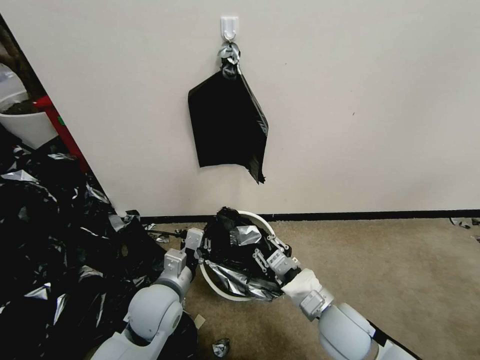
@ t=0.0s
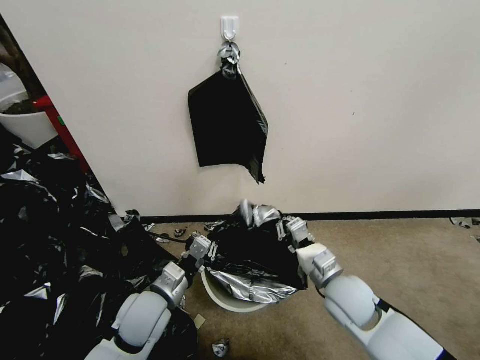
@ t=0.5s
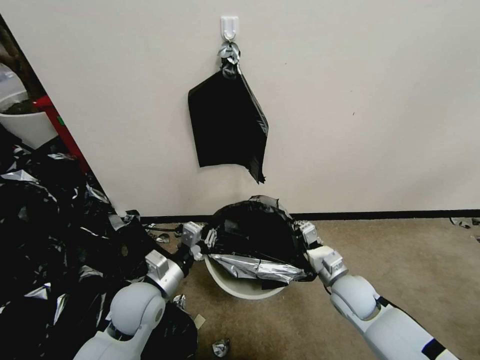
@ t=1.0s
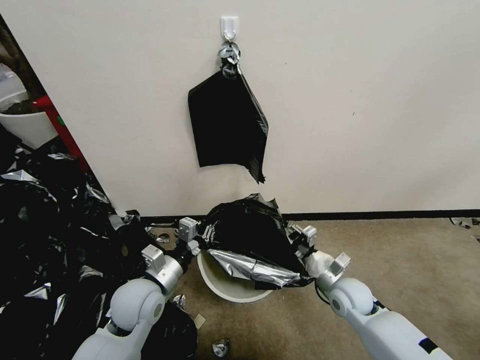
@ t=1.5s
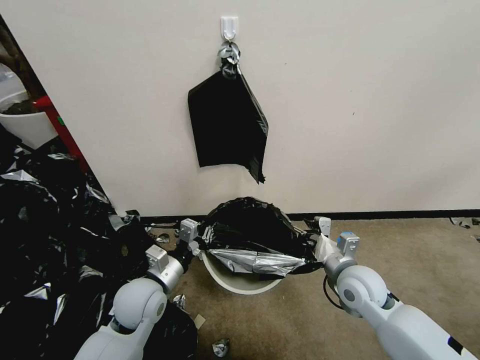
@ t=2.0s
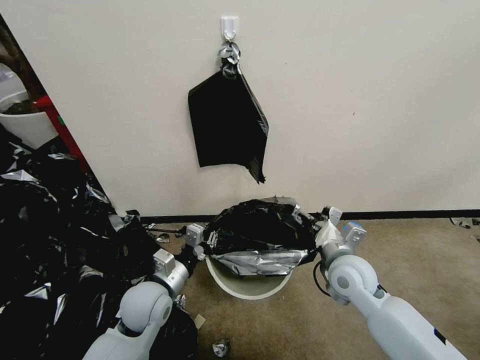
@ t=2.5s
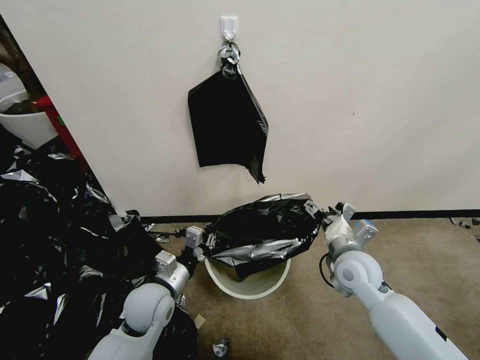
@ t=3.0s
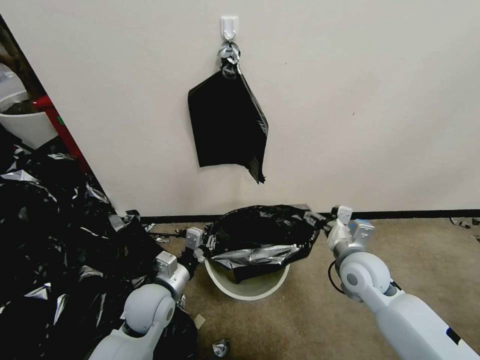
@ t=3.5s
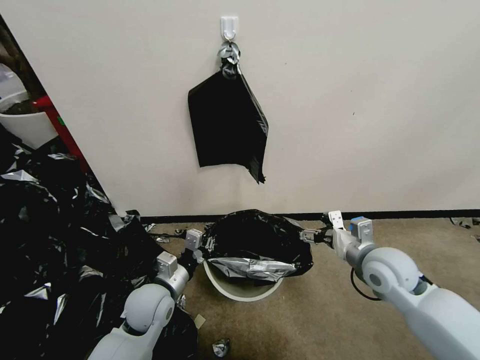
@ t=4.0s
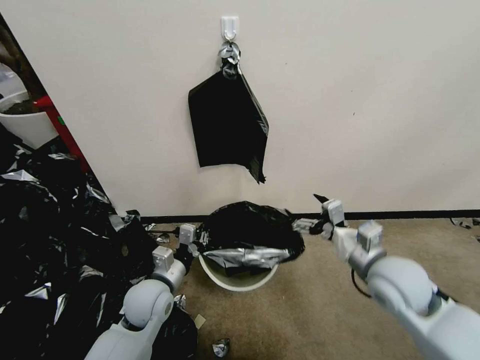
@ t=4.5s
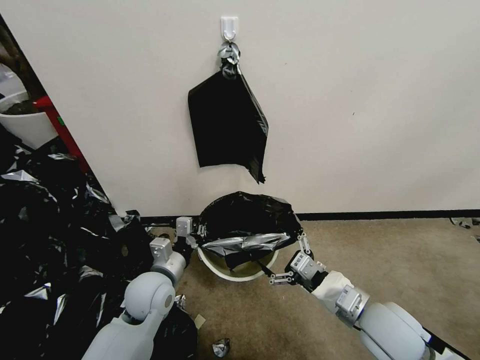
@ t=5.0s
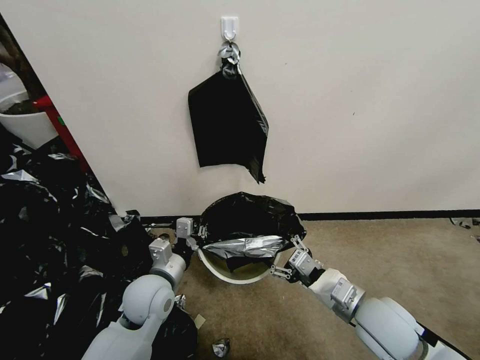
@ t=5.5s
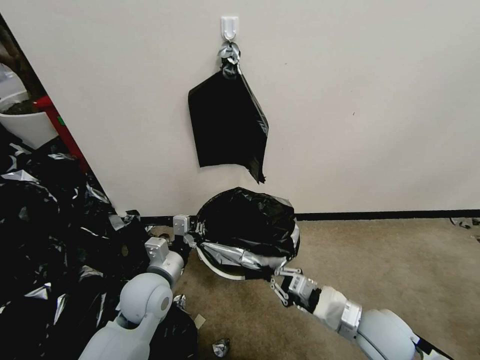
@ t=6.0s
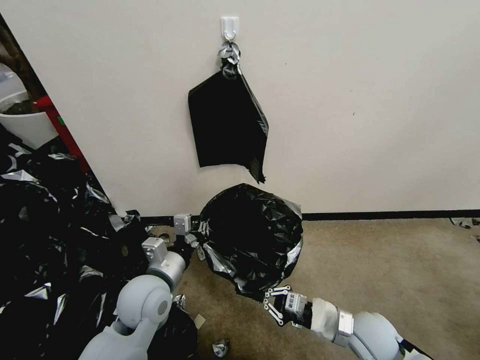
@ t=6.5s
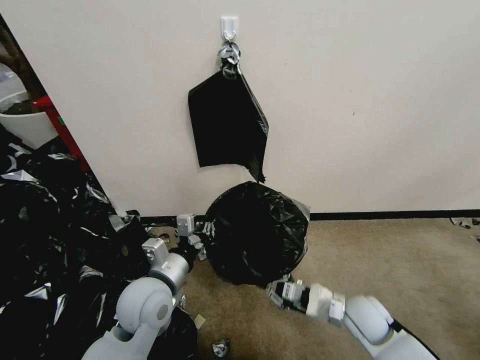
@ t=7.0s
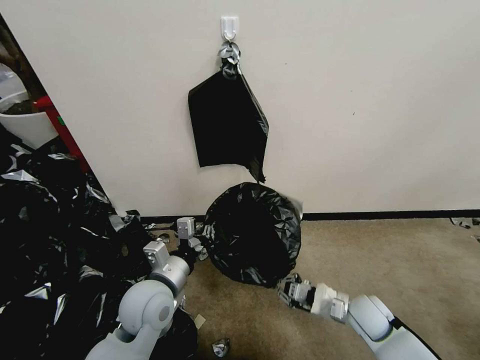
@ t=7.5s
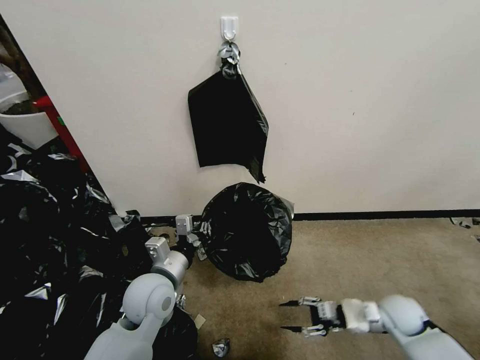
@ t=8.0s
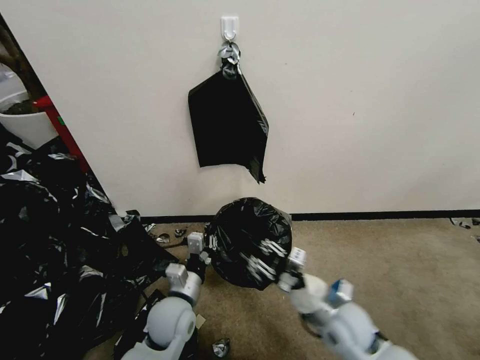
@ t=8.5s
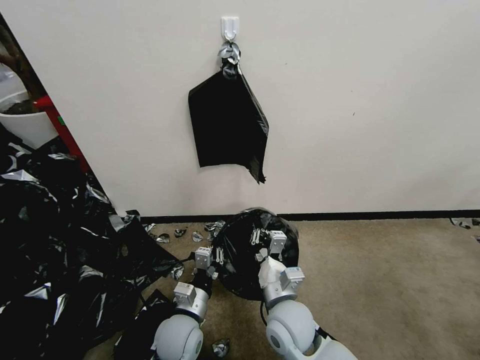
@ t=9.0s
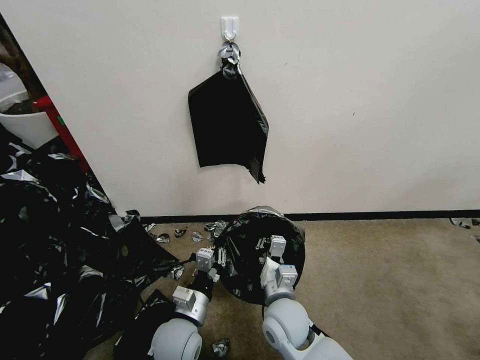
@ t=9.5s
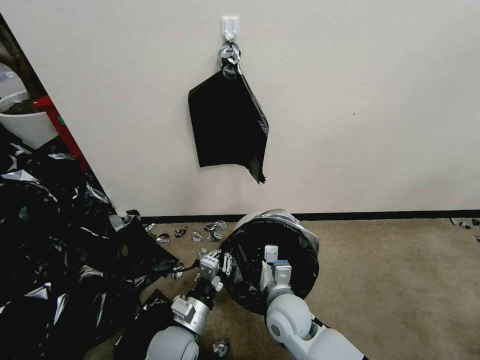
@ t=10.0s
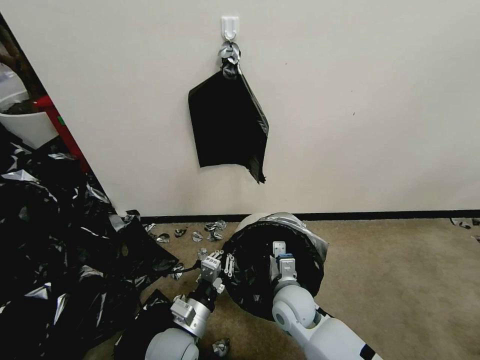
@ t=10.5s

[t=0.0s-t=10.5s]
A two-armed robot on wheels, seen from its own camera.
Task of the whole recording: Place a trash bag onto the trash bin.
t=0.0s to t=2.0s: The right gripper heads forward and to the right, covering about 10 cm, and opens up.
t=2.0s to t=4.0s: The right gripper goes approximately 5 cm upward.
t=4.0s to t=6.5s: The right gripper shifts about 15 cm downward and backward, and closes up. The left gripper goes about 5 cm upward.
t=6.5s to t=8.5s: The left gripper goes about 10 cm downward; the right gripper moves about 10 cm to the right and comes back, and opens its fingers.
t=8.5s to t=10.5s: The right gripper heads to the left, covering about 10 cm, and closes its fingers. The left gripper shifts about 5 cm backward.

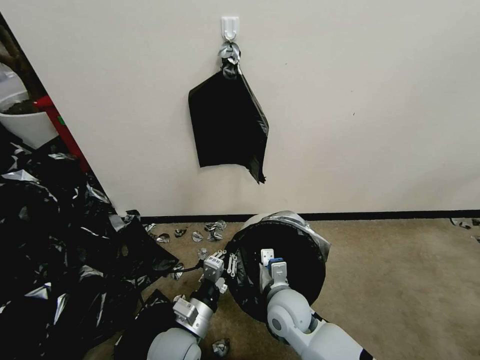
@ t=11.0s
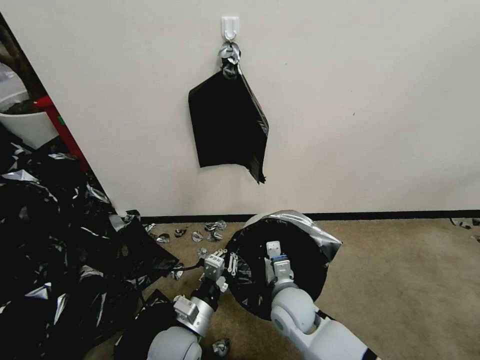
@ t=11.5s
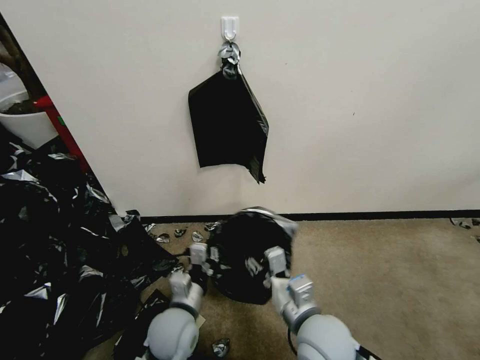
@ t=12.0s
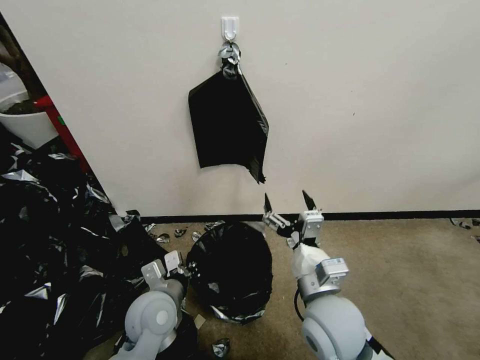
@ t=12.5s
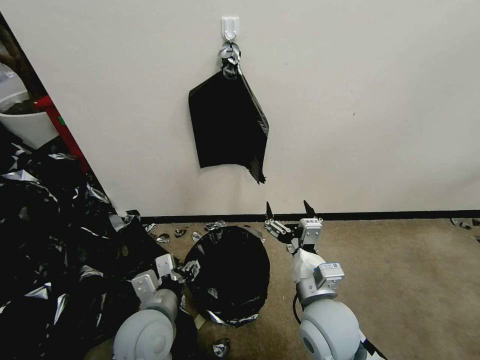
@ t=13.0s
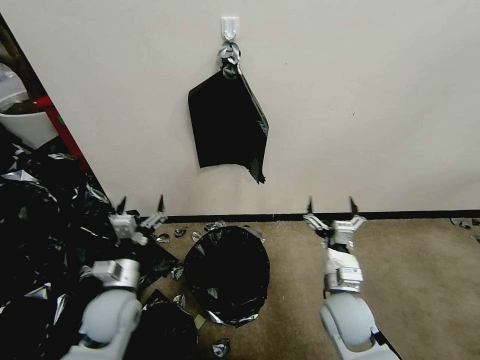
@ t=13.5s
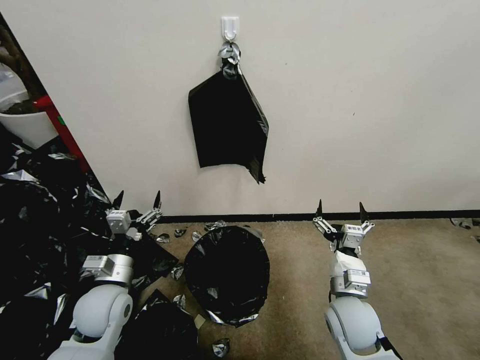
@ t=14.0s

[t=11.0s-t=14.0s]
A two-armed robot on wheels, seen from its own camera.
Task of the whole recording: Place a trash bag onto the trash bin.
t=11.0s to t=12.5s: The right gripper travels upward and backward by some 15 cm, and opens. The left gripper goes roughly 10 cm upward and forward.
t=12.5s to t=14.0s: The right gripper heads downward and to the right, covering some 10 cm. The left gripper travels to the left by roughly 10 cm, and opens its fingers.
